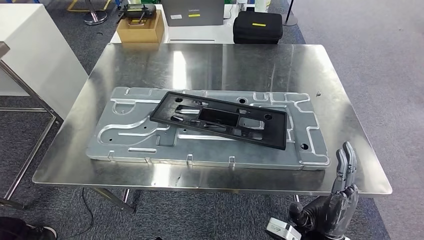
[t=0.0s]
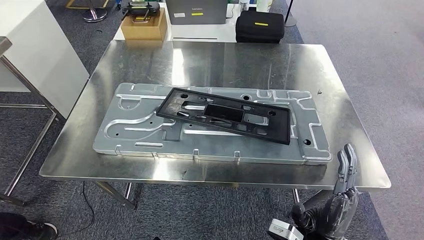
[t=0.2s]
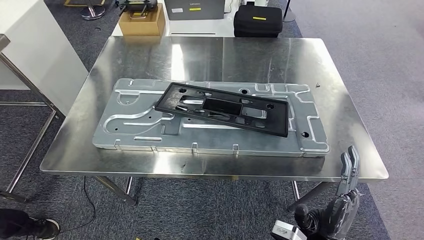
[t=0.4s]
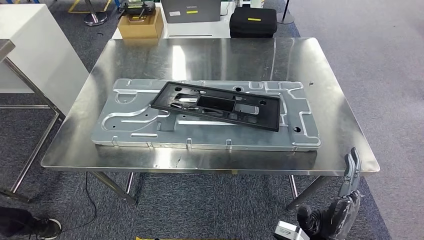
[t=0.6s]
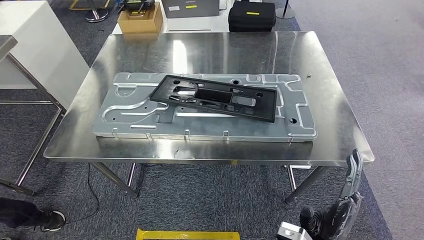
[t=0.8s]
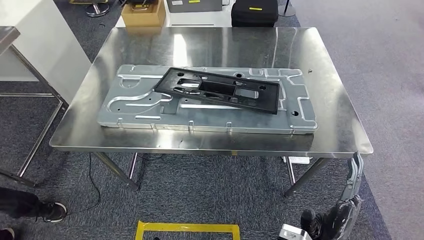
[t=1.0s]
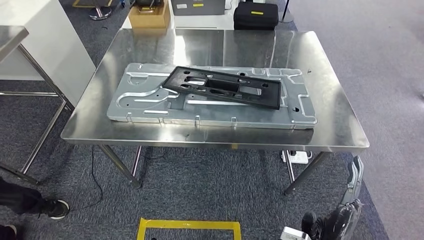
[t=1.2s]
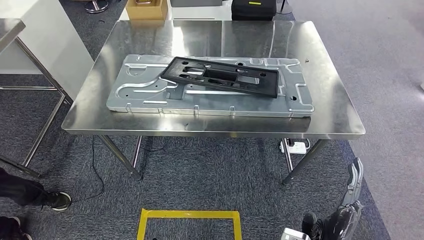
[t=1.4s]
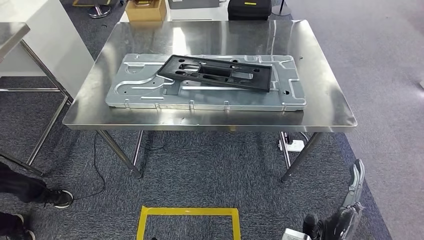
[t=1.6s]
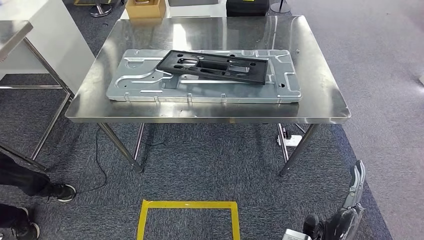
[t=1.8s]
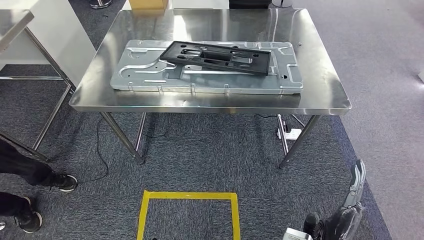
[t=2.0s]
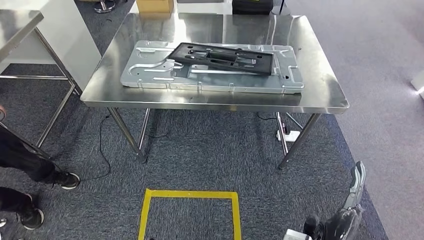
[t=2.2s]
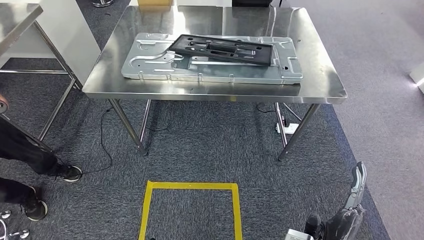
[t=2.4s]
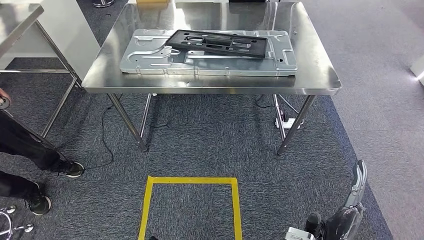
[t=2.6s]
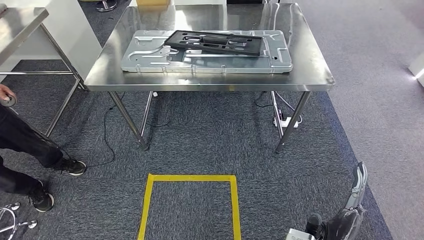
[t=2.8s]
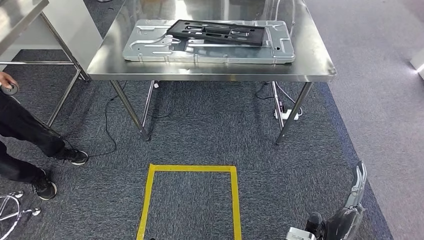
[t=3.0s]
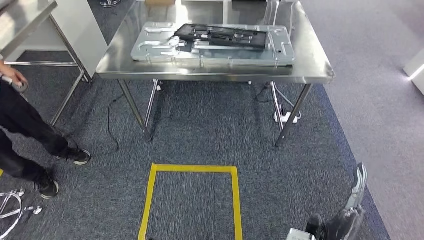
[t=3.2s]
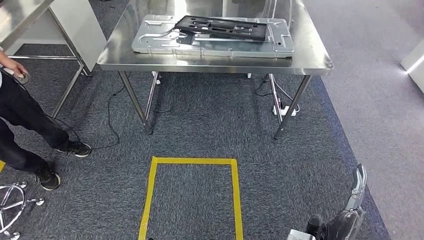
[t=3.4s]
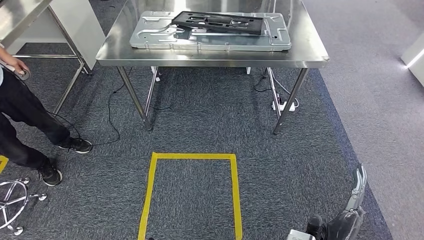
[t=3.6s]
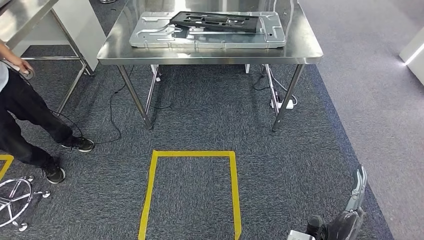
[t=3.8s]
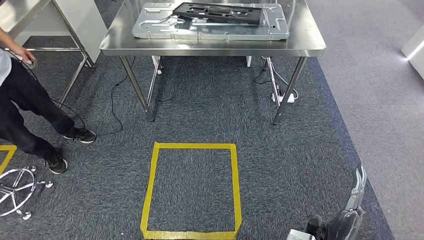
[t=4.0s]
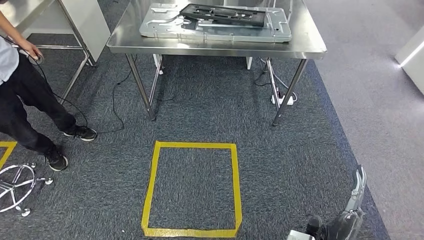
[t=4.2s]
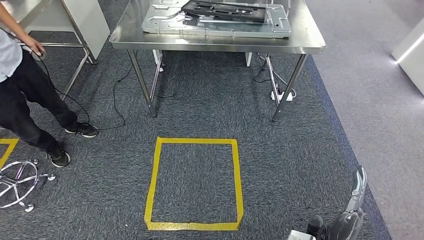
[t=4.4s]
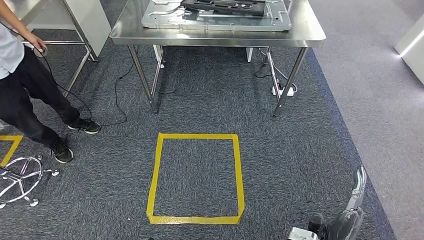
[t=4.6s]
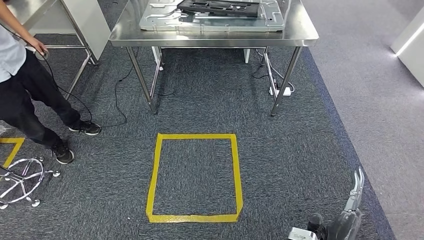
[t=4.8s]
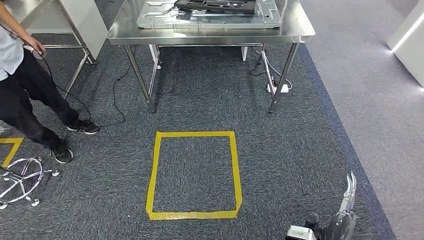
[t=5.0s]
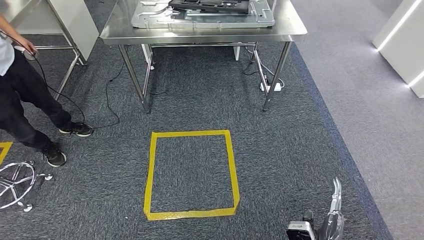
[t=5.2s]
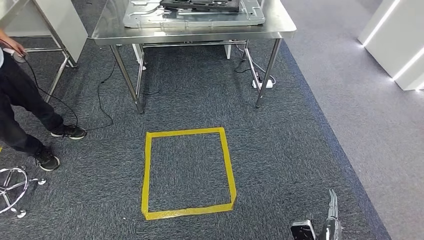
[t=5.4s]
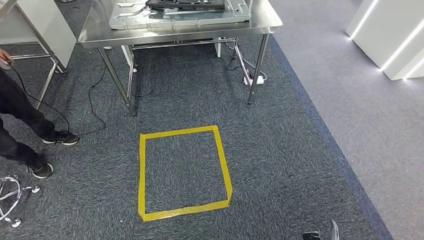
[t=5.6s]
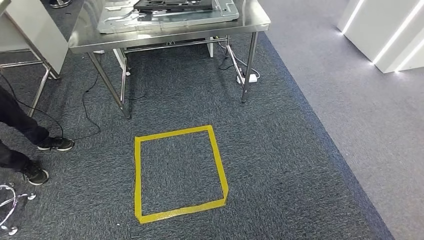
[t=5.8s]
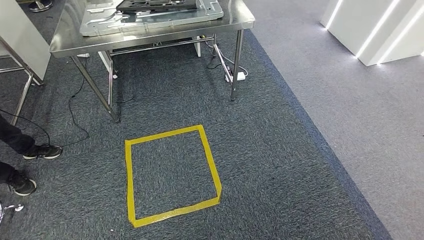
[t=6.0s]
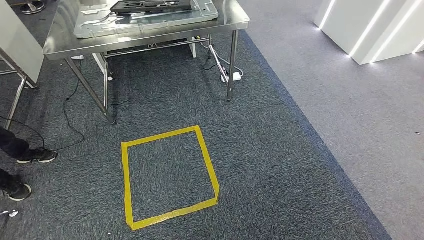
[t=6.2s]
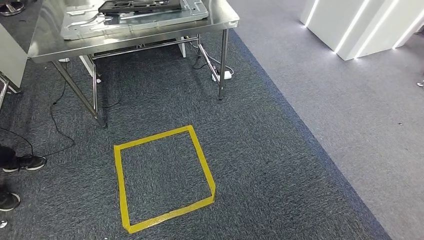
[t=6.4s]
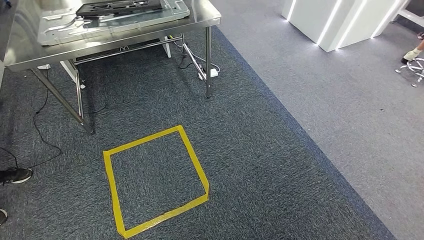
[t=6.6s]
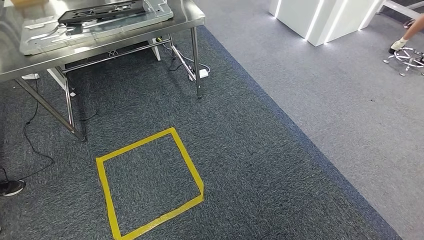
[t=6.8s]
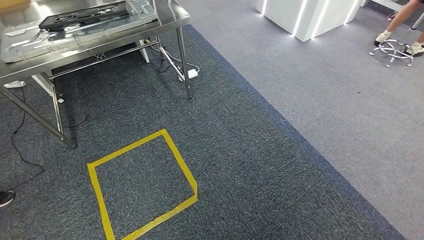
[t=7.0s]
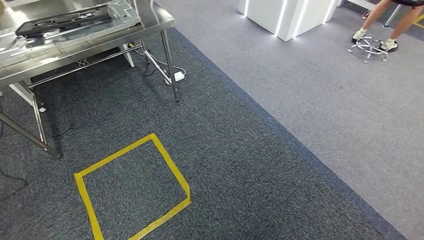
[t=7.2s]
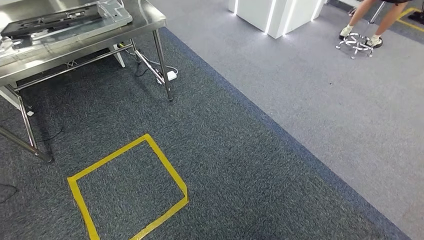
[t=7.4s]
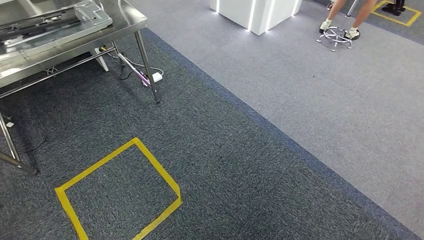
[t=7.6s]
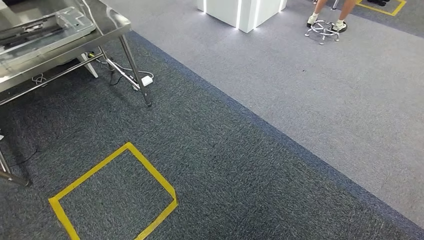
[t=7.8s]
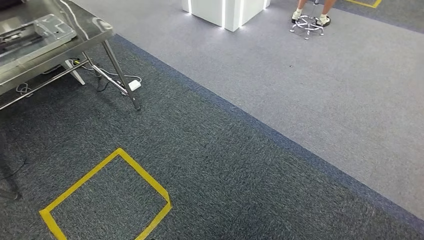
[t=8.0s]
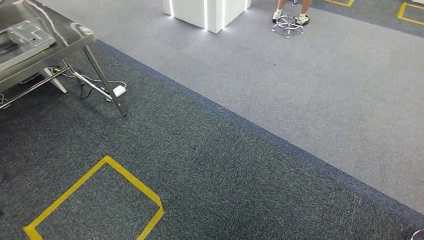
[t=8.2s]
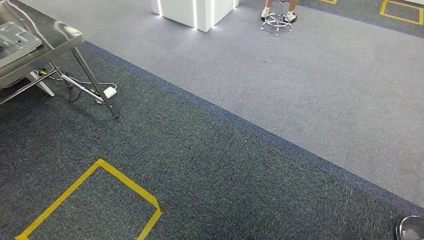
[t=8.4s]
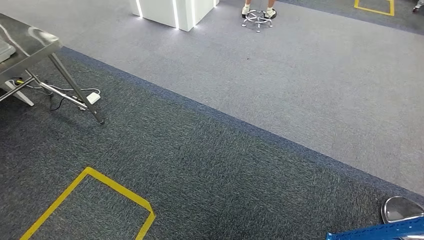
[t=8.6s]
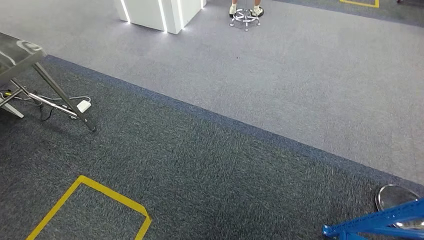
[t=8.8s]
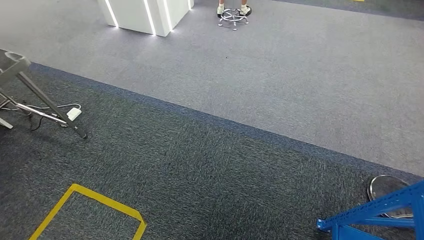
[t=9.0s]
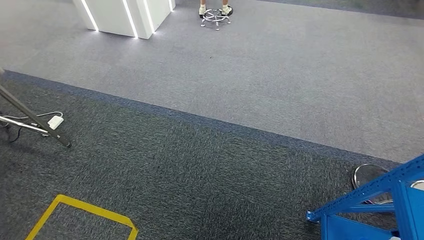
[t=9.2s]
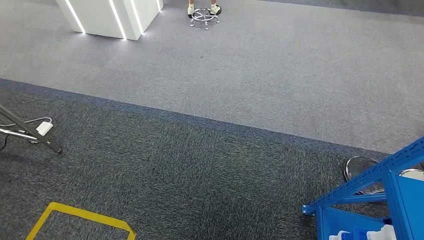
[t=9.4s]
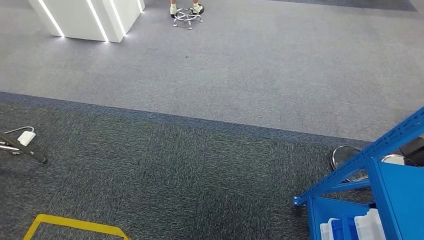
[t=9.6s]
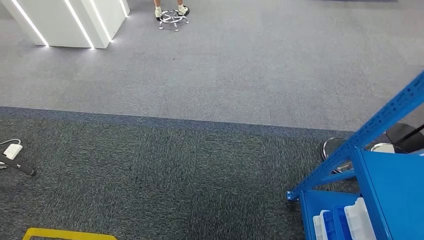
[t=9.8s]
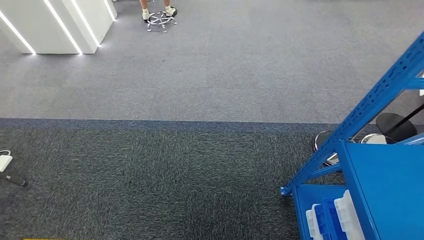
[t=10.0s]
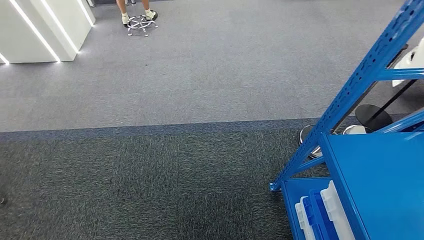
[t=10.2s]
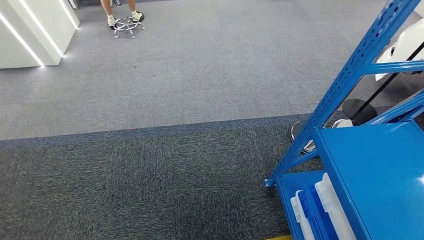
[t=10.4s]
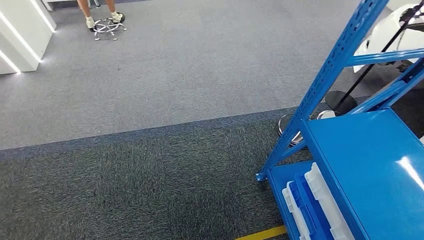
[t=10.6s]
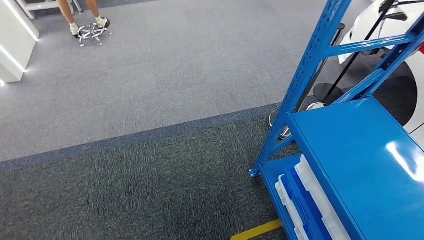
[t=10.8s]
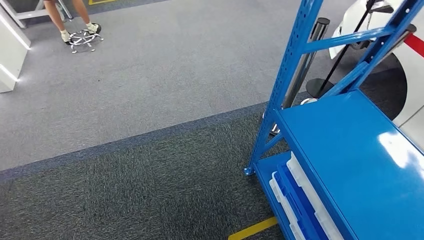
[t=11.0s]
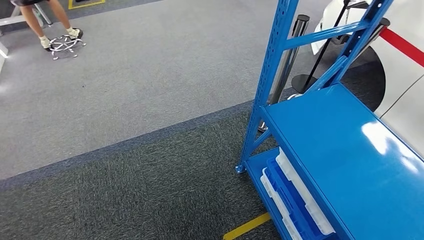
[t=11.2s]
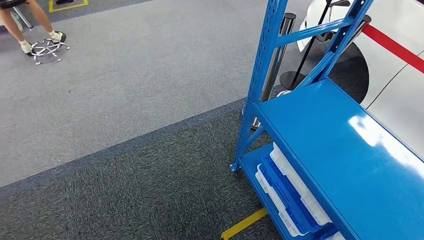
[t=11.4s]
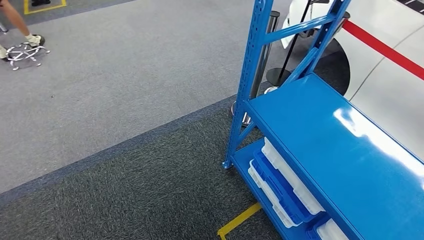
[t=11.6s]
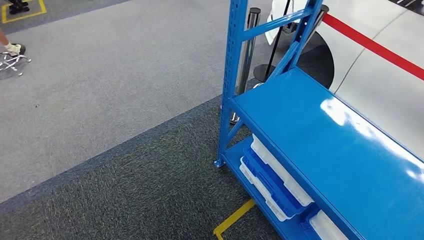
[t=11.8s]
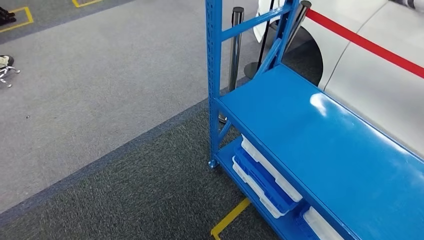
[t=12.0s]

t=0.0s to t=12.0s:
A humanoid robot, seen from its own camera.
Step, t=0.0s to t=2.8s: Insert the large material into the corresponding slot on the workbench.

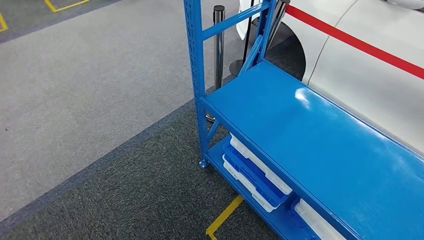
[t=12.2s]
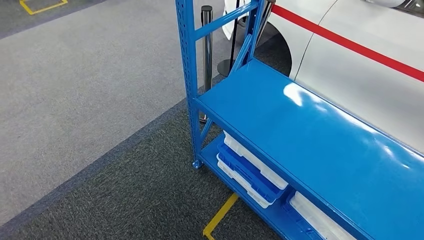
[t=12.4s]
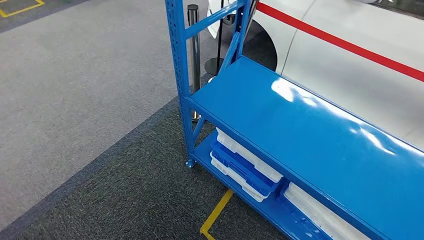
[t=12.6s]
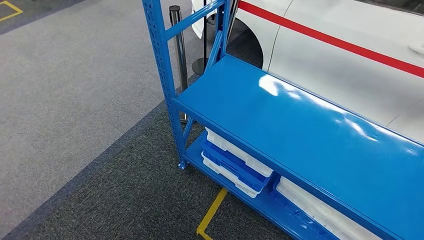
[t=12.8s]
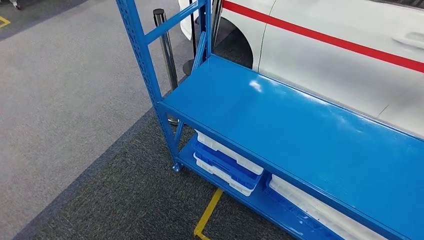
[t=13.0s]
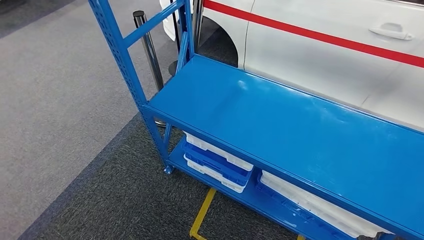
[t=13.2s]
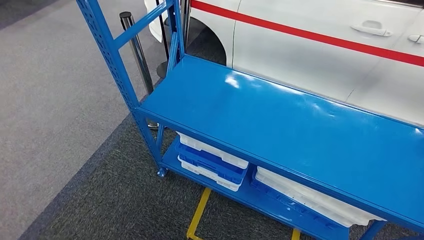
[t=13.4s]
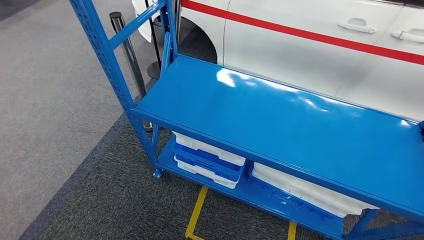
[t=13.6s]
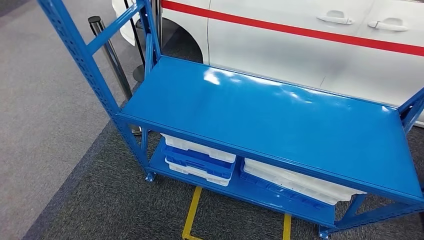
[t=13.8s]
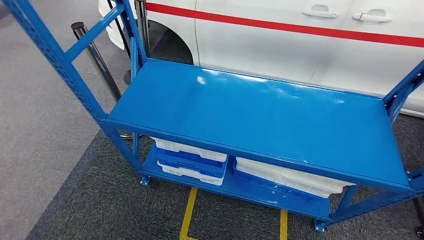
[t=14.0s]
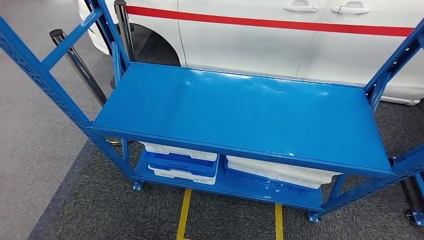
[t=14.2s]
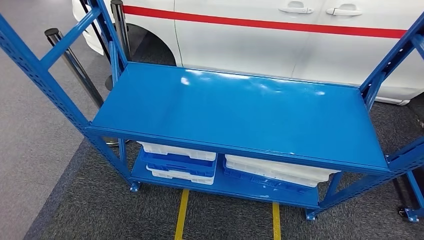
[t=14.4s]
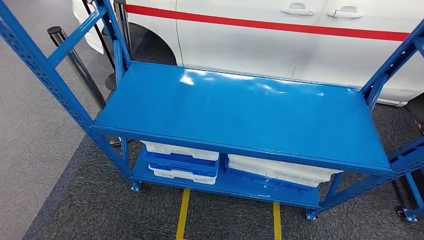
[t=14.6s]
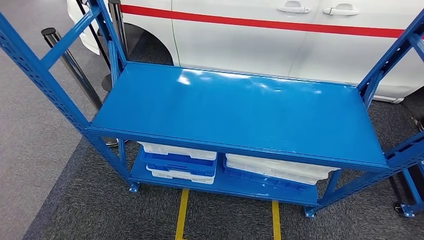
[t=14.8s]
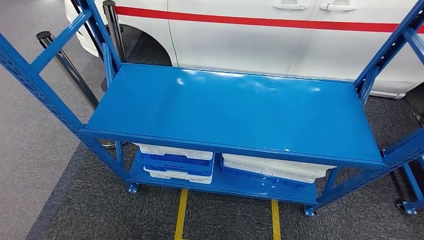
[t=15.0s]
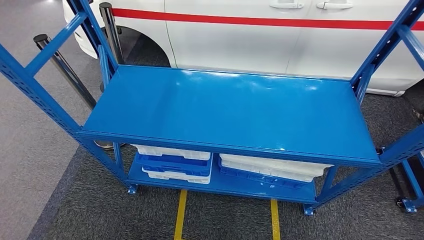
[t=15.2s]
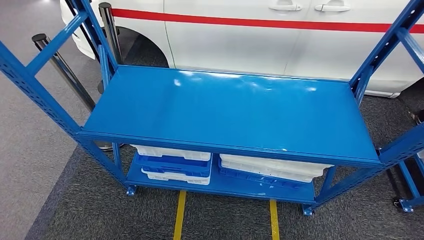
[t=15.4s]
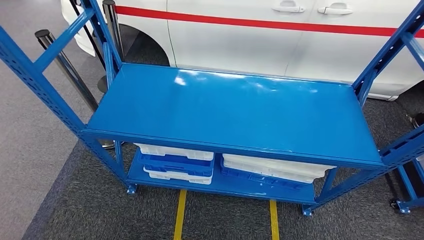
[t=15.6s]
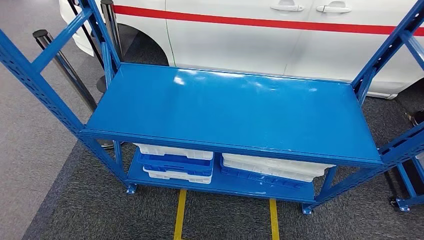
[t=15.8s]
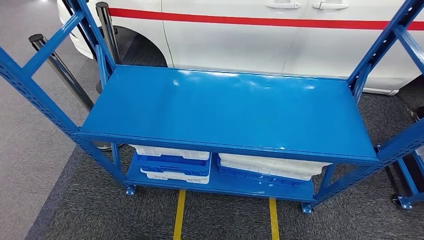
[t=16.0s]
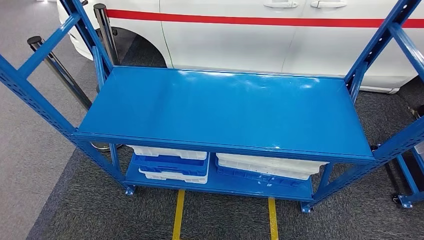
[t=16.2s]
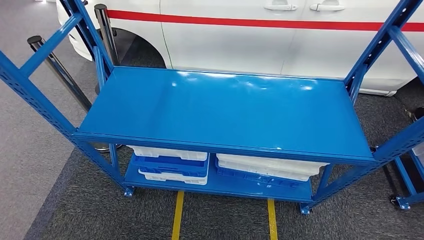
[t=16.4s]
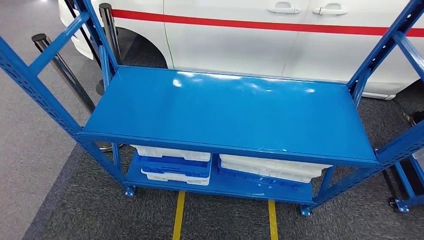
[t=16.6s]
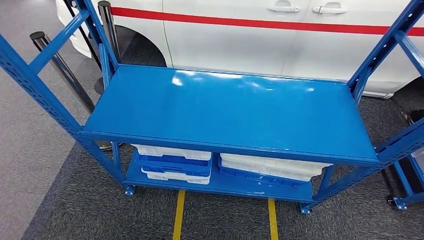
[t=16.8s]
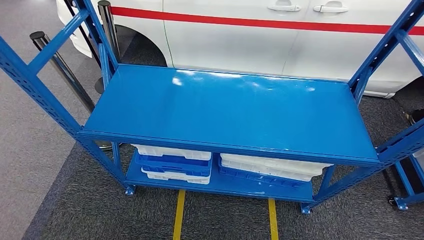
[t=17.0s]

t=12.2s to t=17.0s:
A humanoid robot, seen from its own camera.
Step, t=12.2s to t=17.0s: Move to the initial position of the shelf.
t=15.4s to t=17.0s: The right hand shifts about 5 cm to the right, while the left hand moves to the left, some 5 cm.
